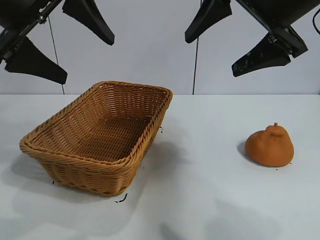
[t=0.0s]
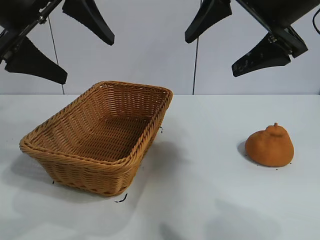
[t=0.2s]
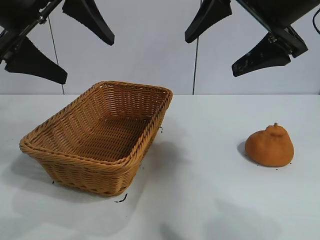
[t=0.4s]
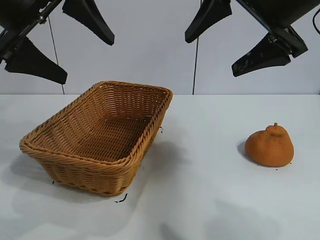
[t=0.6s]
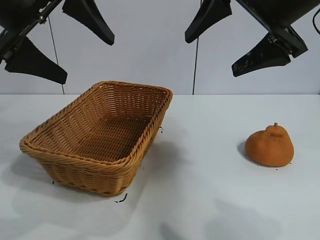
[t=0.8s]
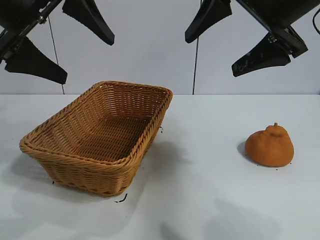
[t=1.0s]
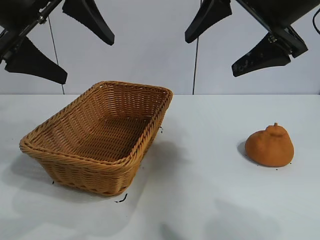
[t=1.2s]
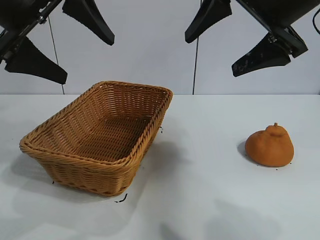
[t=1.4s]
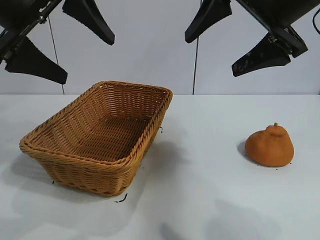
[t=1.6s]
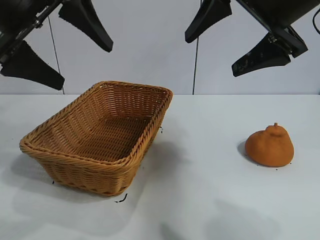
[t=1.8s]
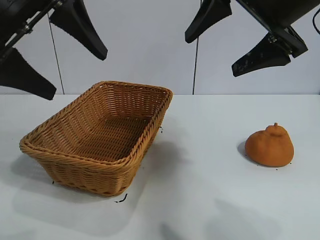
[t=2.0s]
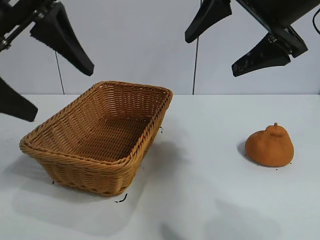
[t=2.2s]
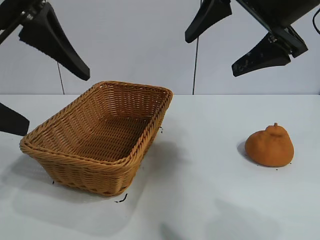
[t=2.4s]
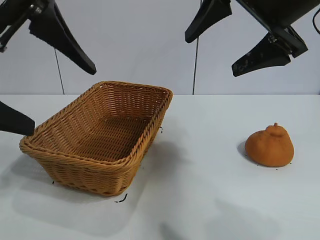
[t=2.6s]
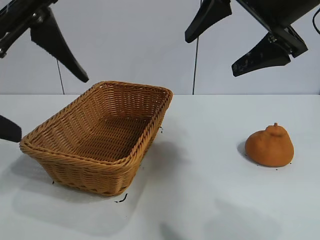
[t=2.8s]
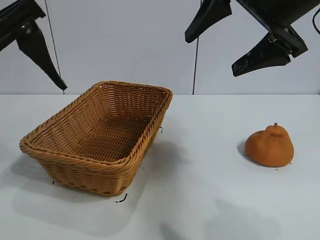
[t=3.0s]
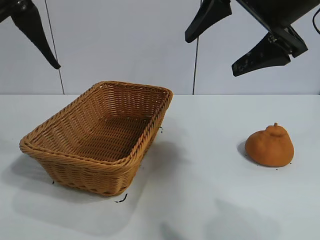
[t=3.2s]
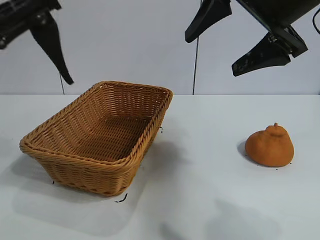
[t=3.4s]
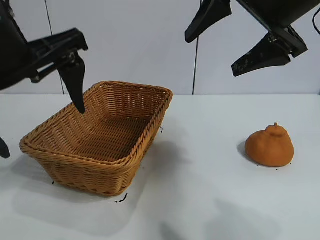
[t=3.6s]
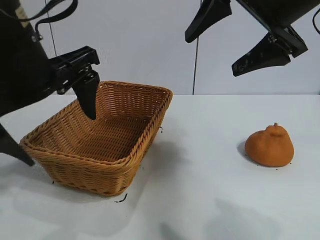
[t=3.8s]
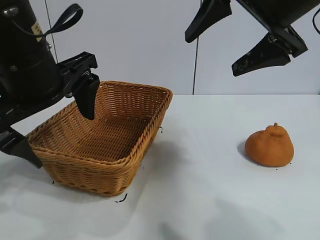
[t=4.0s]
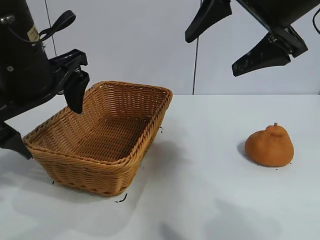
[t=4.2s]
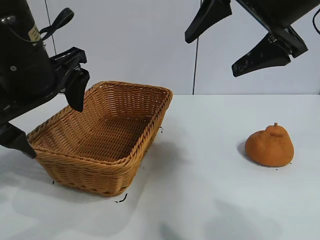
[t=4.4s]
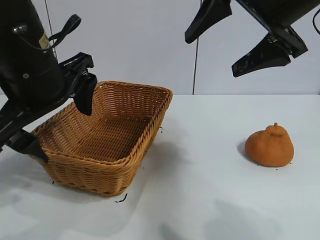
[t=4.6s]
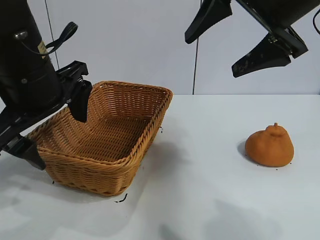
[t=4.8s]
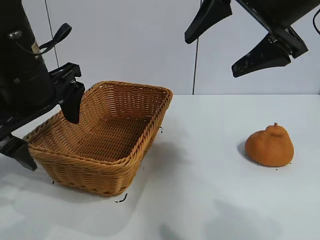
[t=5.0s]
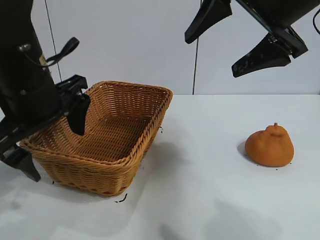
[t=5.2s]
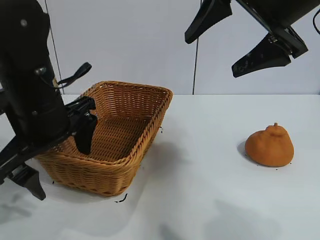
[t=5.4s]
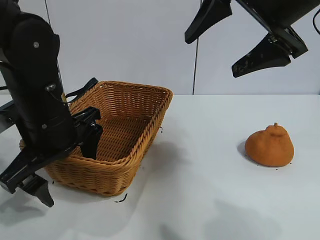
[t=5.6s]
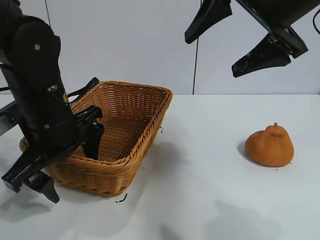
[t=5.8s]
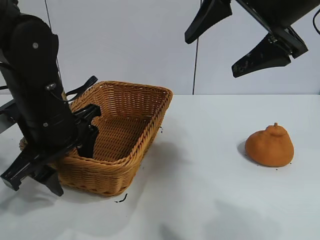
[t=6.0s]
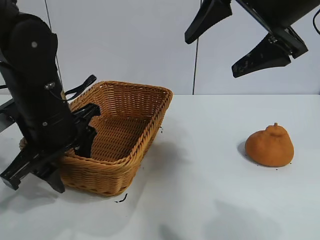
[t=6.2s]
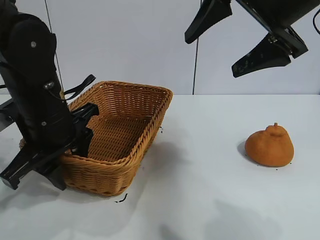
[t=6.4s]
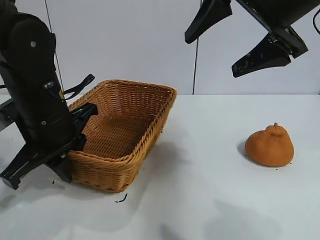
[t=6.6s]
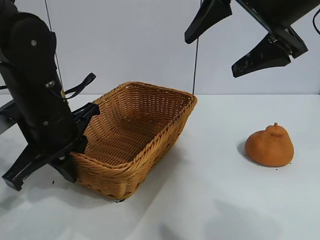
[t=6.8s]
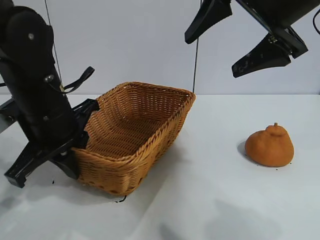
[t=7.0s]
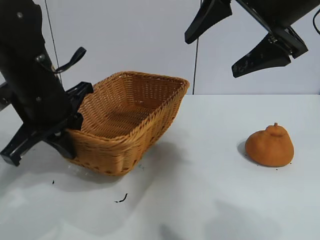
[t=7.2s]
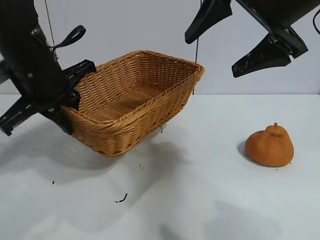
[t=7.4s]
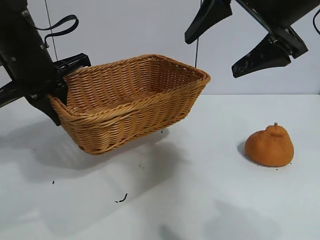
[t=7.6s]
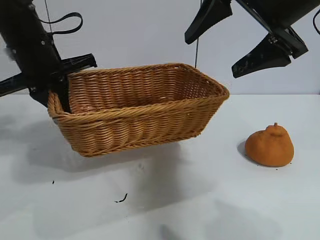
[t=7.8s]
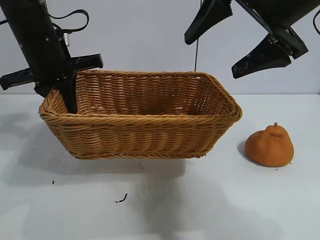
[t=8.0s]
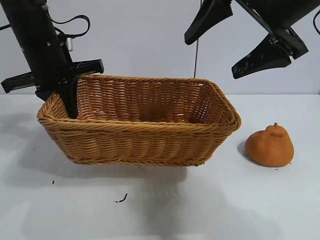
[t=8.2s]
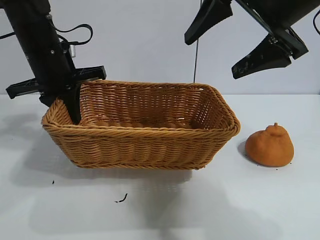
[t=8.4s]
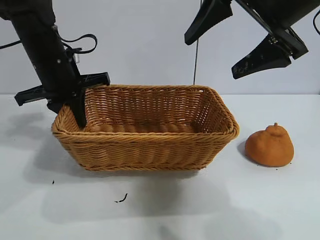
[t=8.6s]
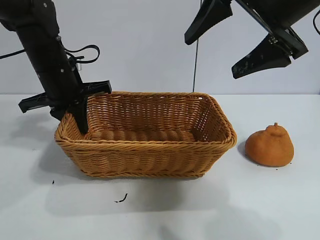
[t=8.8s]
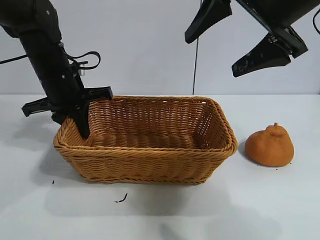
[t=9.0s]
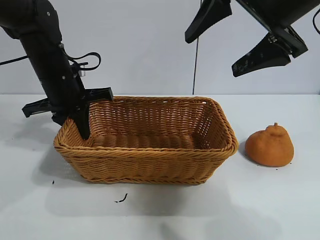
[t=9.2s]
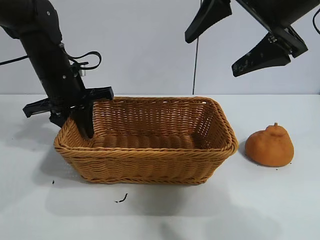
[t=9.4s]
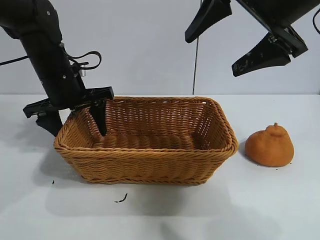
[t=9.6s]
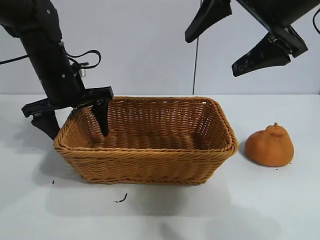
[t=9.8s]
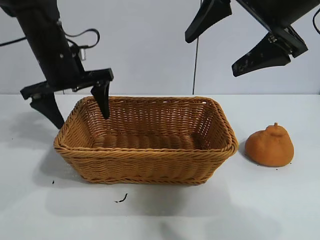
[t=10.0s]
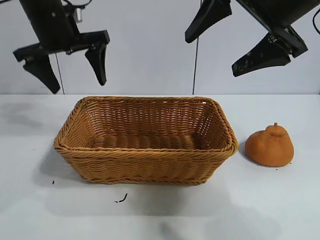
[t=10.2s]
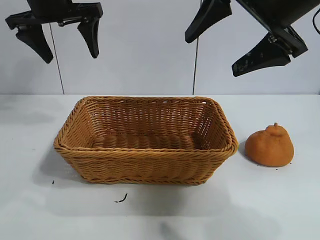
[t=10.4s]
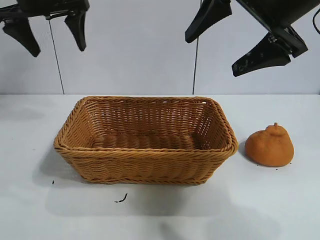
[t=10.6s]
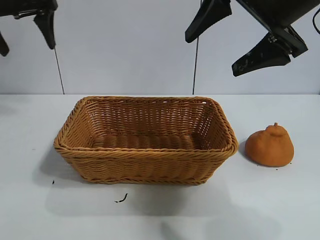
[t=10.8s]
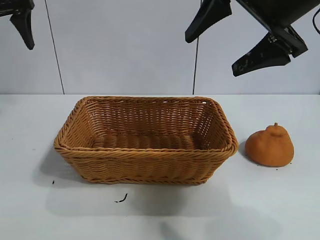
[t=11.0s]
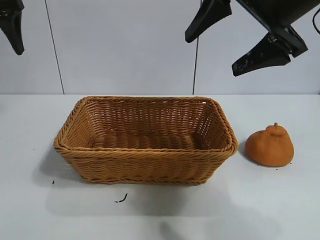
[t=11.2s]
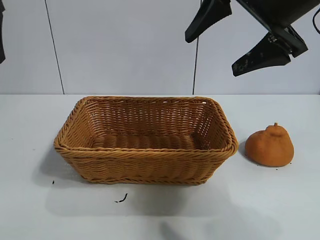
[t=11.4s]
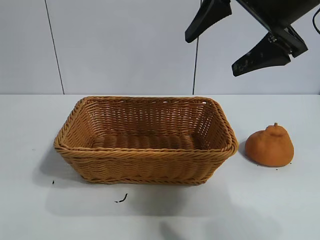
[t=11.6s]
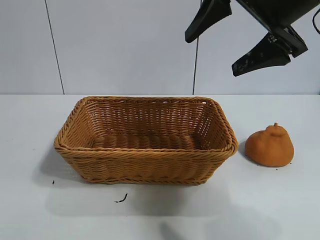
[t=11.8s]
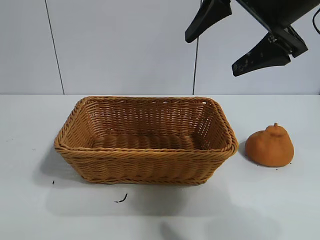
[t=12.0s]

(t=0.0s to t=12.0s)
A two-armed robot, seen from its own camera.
Task of the whole recording: pick up the orange and put it into the basket.
Step, t=1.8s - t=6.6s: Grasp the basket with left gripper.
Step, t=6.8s - t=9.8s: Place the basket in the center of view with left gripper.

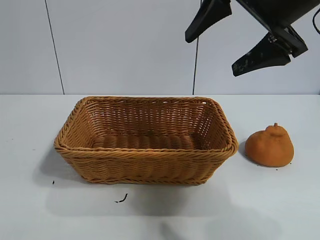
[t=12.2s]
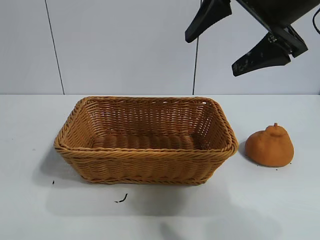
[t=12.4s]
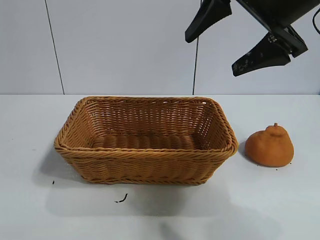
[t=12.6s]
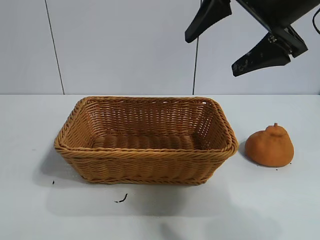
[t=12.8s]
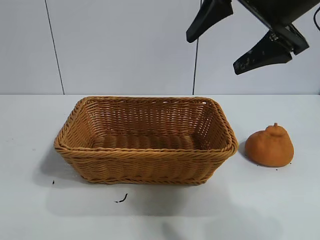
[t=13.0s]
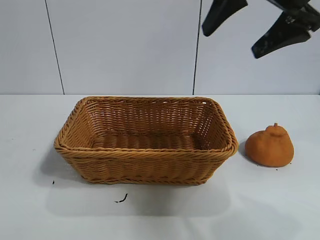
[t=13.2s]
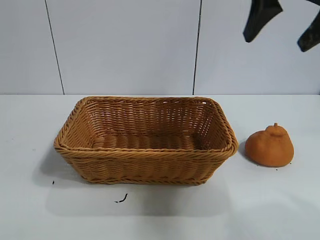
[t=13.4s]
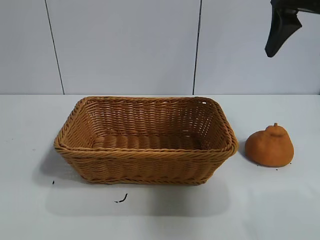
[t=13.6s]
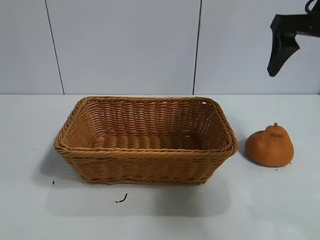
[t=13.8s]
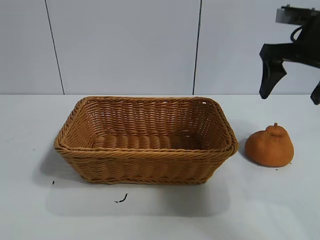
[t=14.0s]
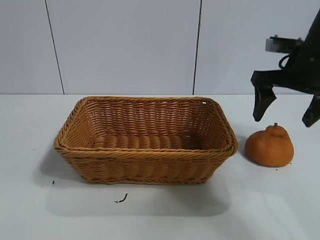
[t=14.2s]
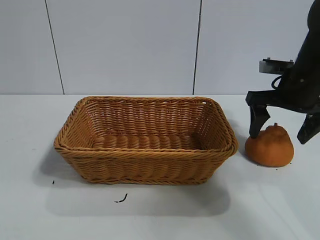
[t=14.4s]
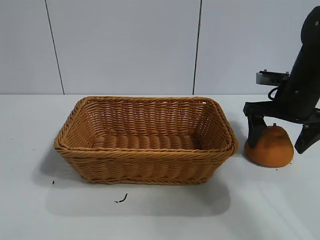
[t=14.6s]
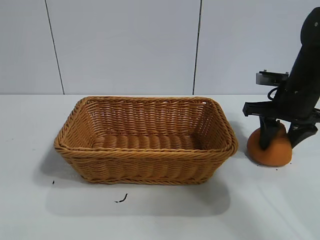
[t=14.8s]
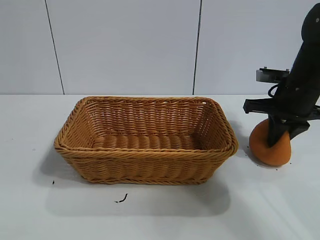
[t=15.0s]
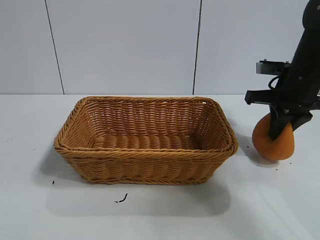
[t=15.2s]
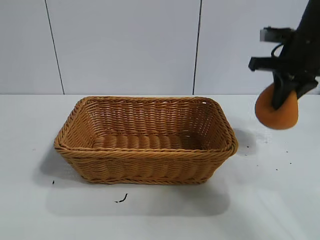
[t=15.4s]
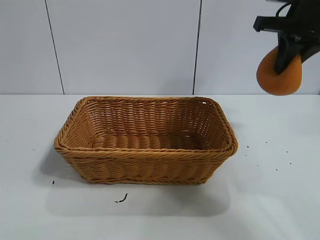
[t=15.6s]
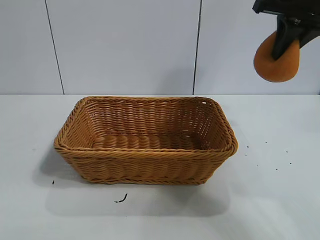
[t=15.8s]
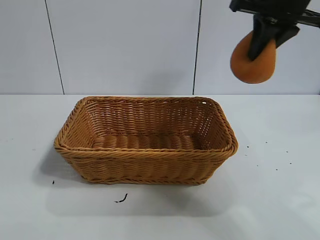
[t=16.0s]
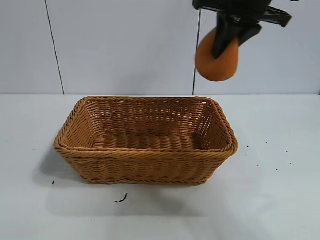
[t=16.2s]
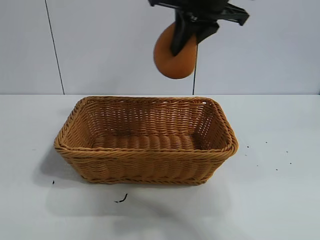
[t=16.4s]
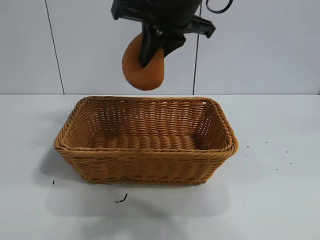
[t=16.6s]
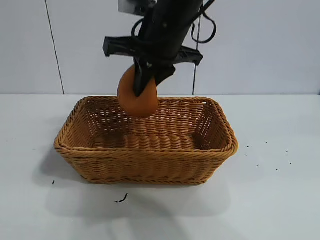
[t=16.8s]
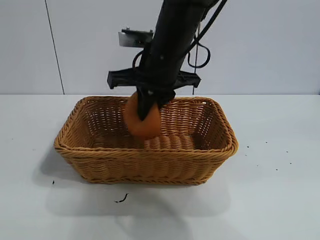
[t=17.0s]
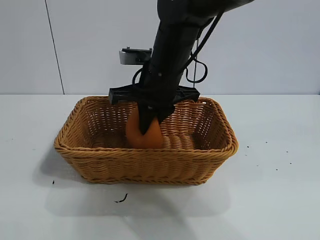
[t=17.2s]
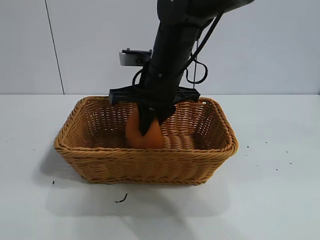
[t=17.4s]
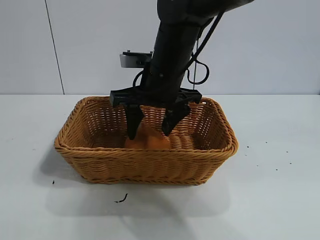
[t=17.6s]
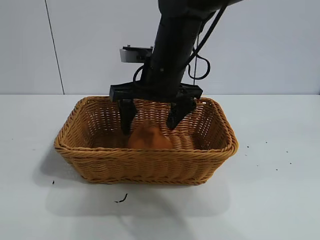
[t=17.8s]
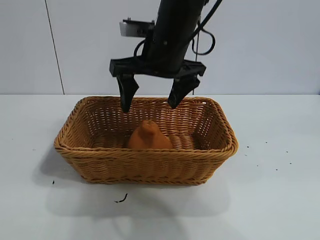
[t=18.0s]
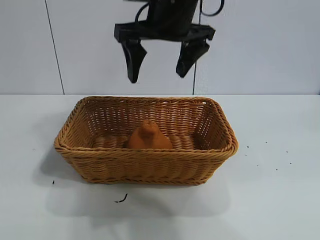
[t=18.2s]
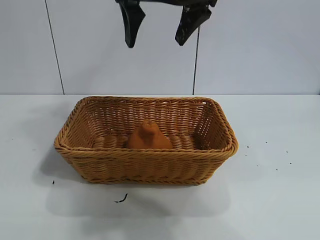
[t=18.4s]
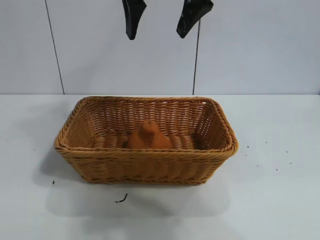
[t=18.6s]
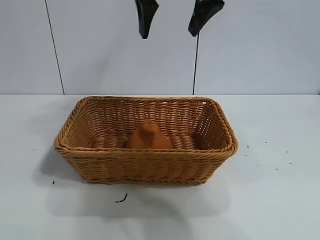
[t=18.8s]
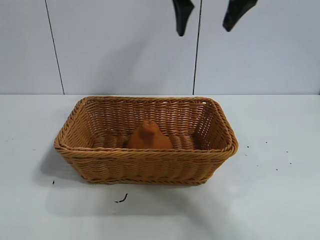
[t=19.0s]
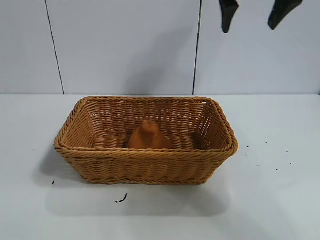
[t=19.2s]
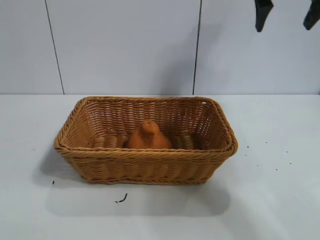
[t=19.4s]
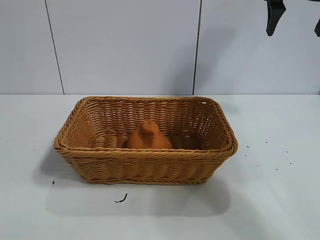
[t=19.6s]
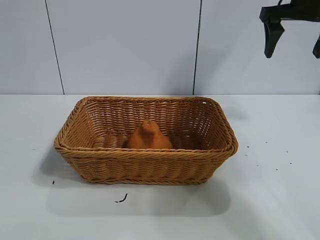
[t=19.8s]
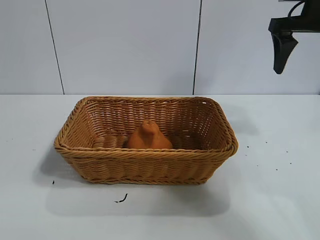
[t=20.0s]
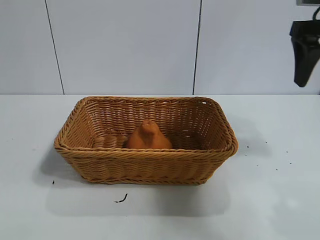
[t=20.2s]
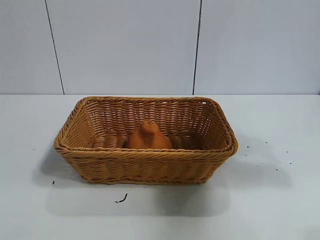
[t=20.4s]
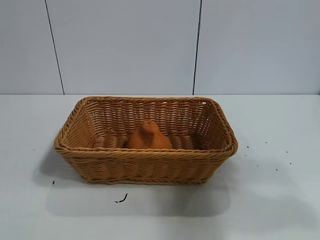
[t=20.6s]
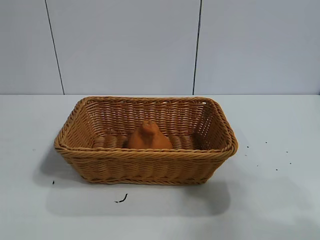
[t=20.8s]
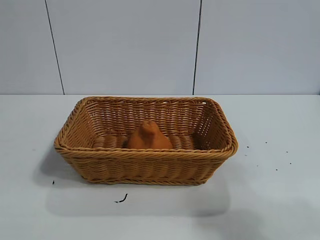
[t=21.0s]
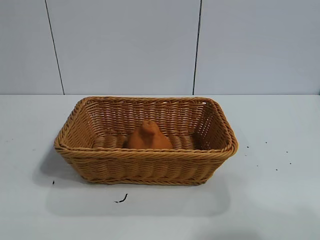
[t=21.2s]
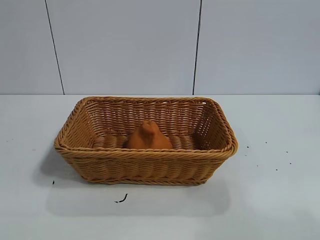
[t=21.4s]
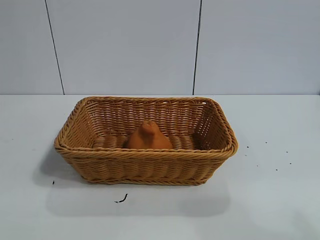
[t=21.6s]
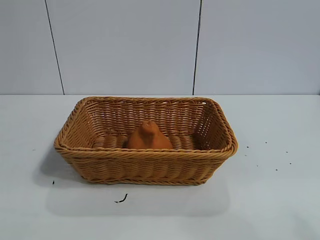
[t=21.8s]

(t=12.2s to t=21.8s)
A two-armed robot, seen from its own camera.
Task of the whole recording: pick up the orange and put it into the basket.
Step, t=12.2s - t=15.0s: Grasp the orange with right gripper.
Step, t=15.2s - t=17.6s: Place the orange in the basket with right gripper.
